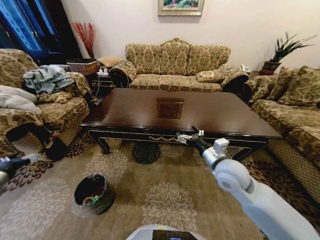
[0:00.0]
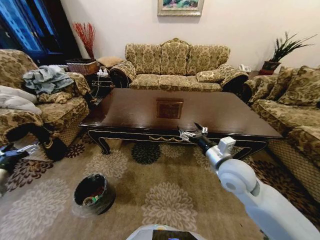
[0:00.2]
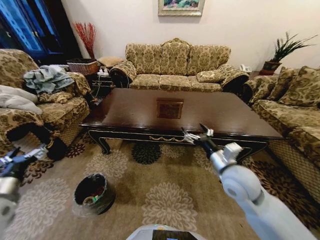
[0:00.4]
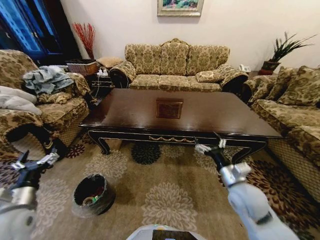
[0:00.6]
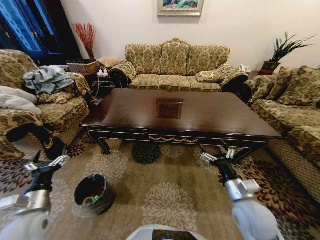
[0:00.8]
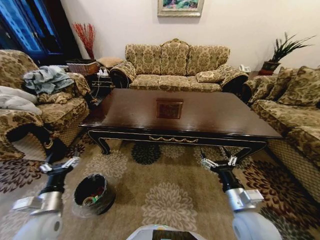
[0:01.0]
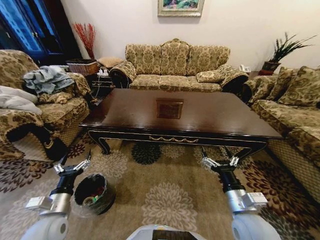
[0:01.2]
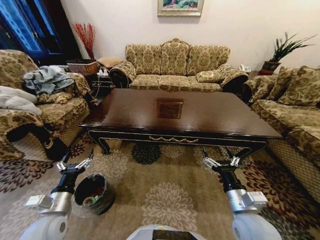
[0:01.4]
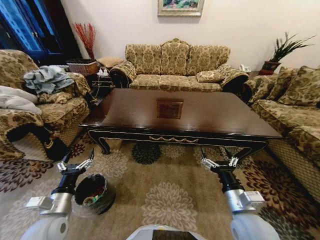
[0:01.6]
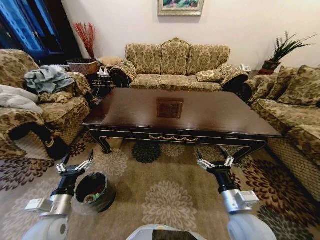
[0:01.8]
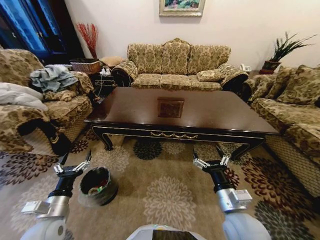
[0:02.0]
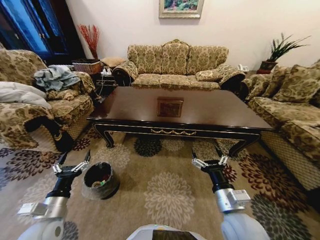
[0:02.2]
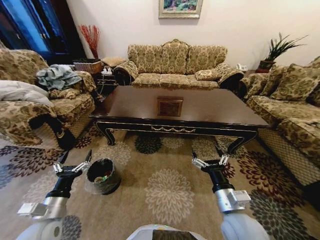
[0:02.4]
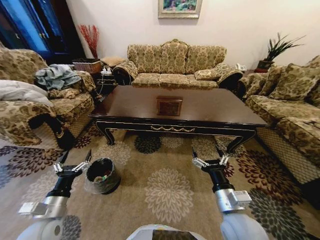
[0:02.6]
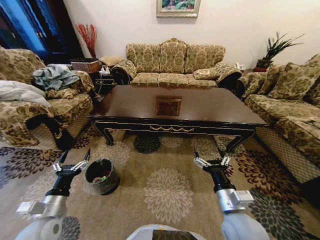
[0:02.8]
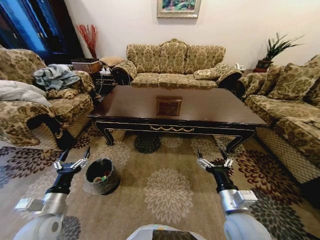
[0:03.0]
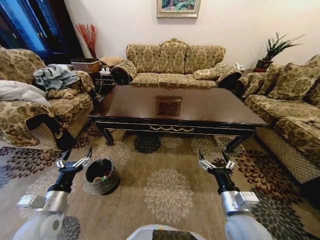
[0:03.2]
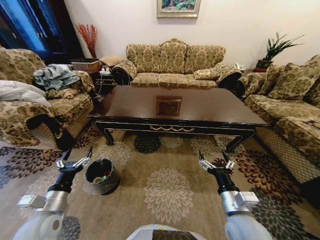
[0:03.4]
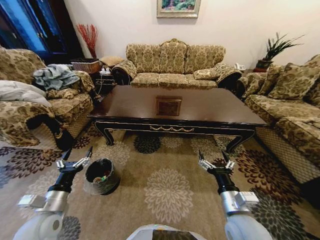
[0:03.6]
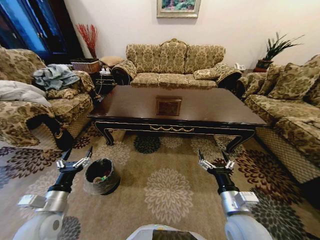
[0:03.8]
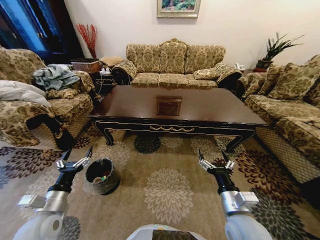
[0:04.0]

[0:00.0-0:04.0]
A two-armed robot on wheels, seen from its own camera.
Task of the whole recording: Move to the front of the table and place the trash on the table into the trash bin.
0:00.0 to 0:01.4: The right gripper is displaced backward and downward by approximately 15 cm; the left gripper travels to the right by roughly 25 cm.
0:02.6 to 0:04.0: The grippers stay close to where they were, moving slightly.
